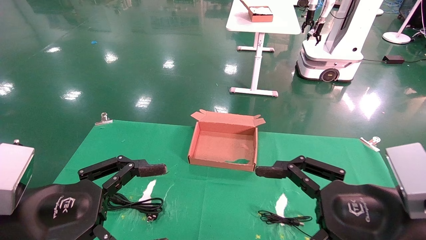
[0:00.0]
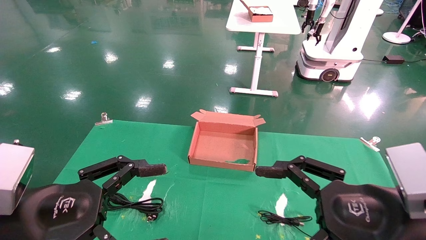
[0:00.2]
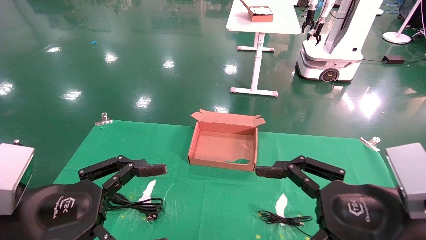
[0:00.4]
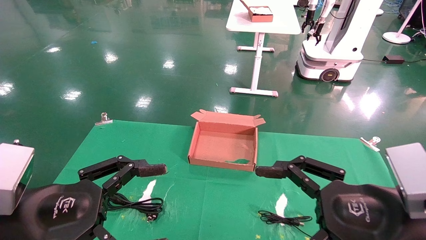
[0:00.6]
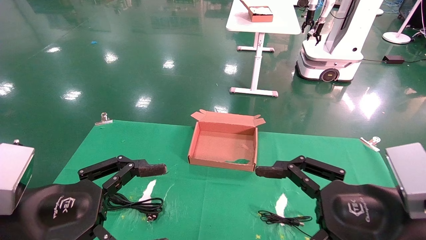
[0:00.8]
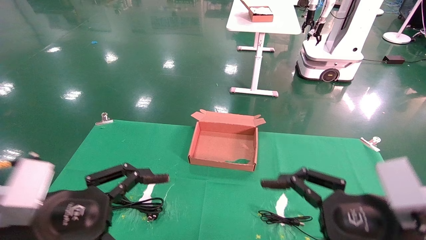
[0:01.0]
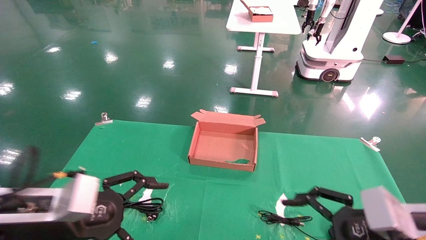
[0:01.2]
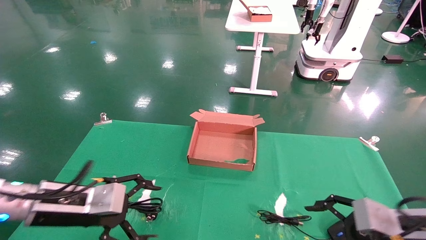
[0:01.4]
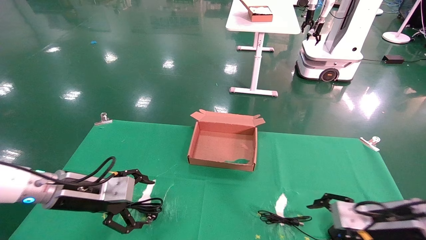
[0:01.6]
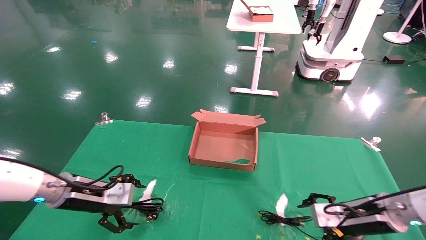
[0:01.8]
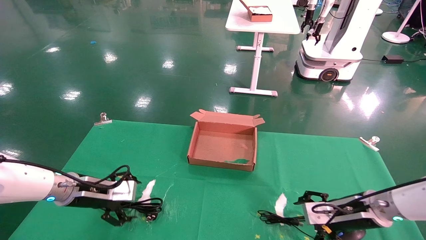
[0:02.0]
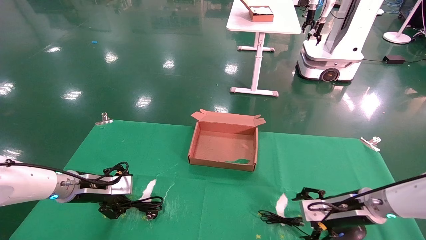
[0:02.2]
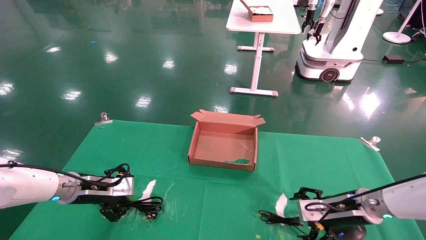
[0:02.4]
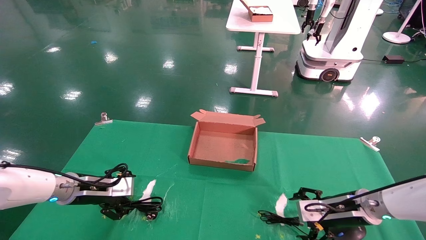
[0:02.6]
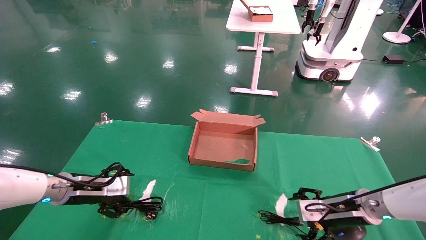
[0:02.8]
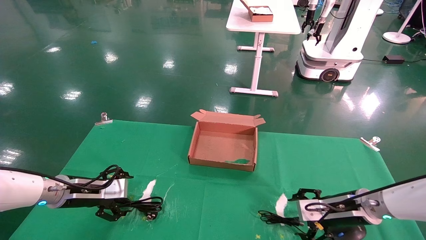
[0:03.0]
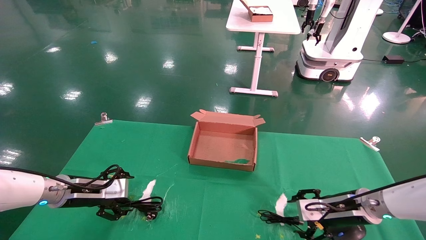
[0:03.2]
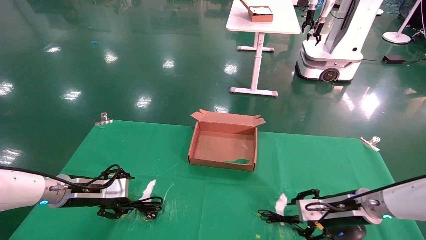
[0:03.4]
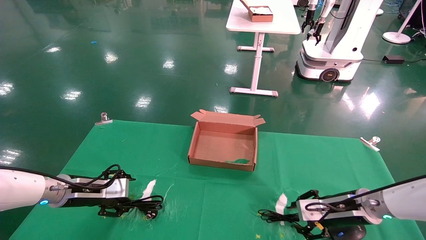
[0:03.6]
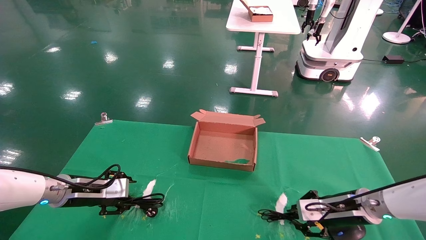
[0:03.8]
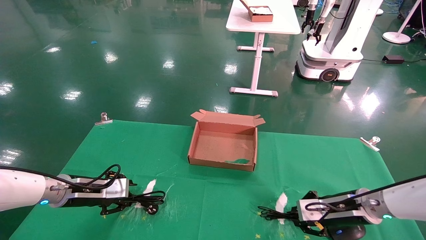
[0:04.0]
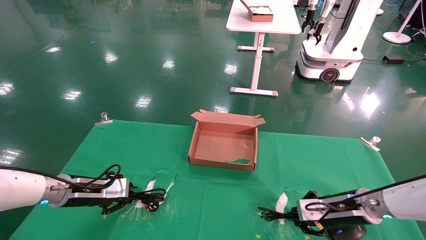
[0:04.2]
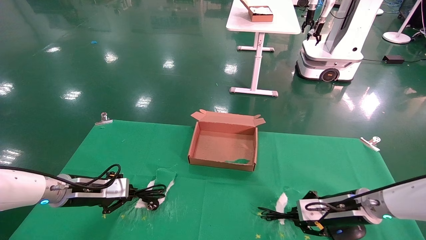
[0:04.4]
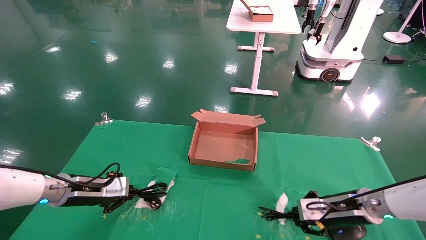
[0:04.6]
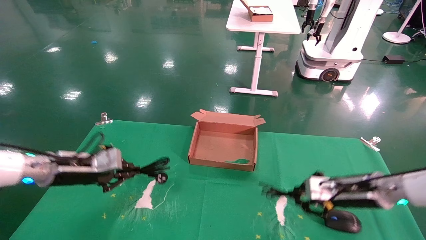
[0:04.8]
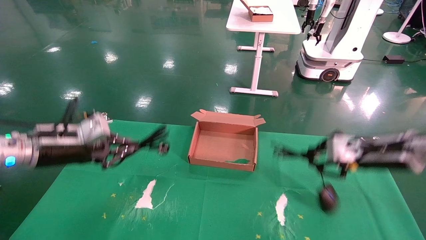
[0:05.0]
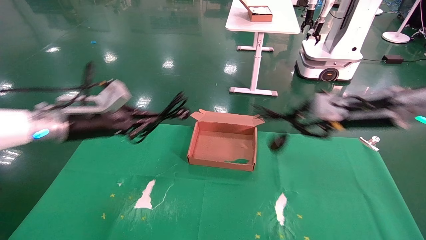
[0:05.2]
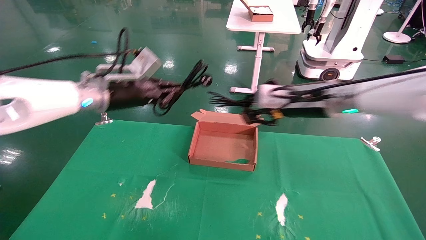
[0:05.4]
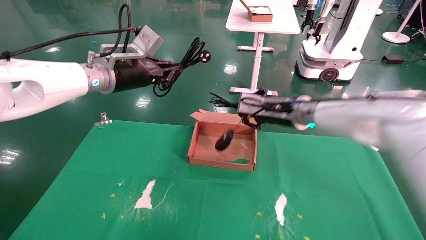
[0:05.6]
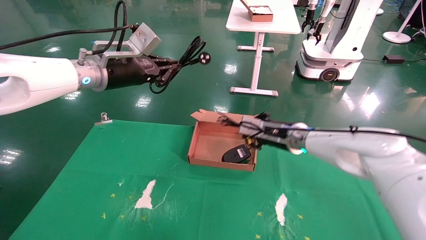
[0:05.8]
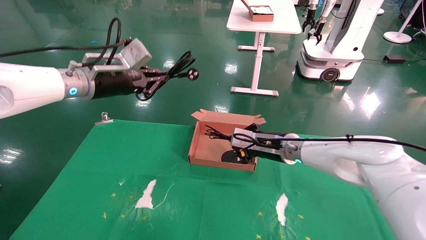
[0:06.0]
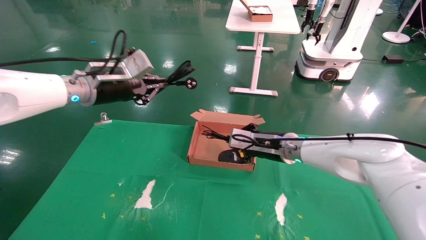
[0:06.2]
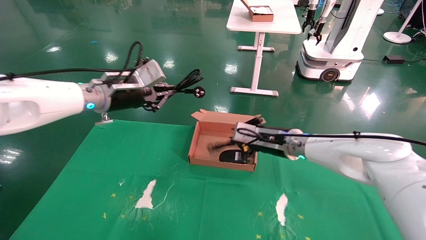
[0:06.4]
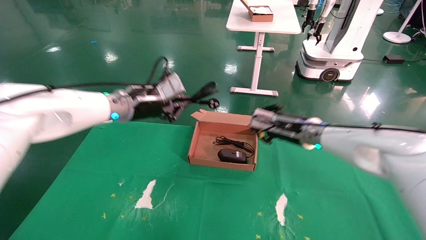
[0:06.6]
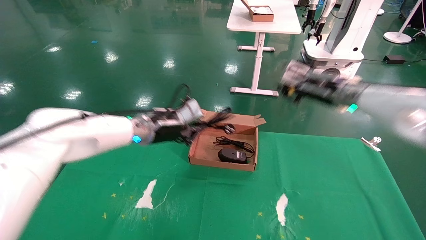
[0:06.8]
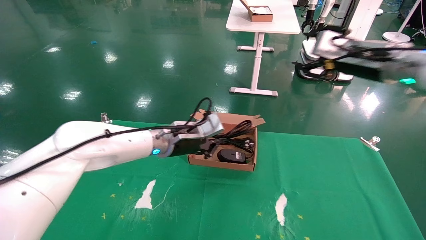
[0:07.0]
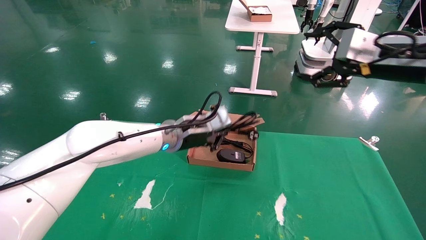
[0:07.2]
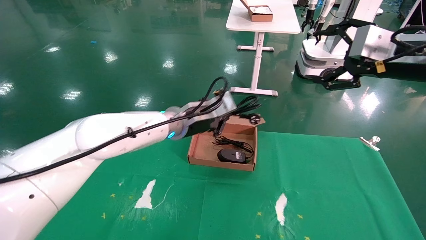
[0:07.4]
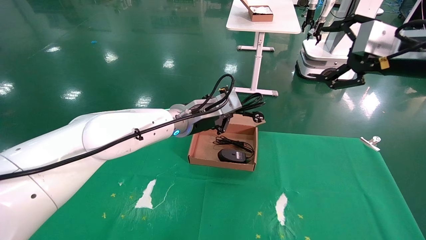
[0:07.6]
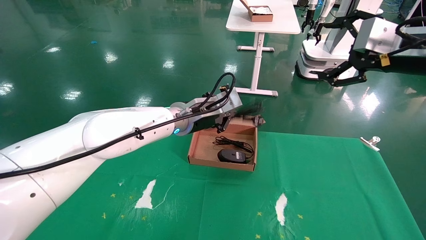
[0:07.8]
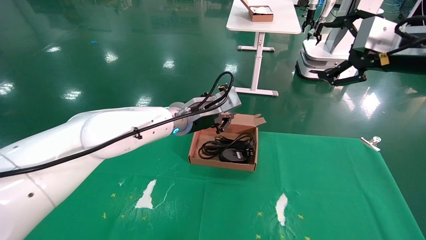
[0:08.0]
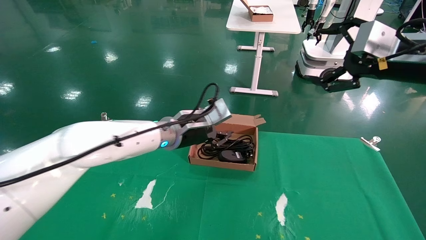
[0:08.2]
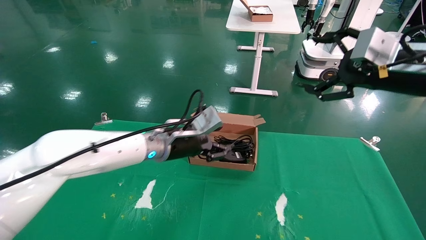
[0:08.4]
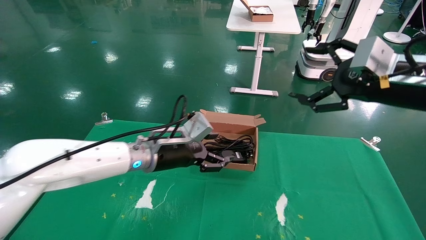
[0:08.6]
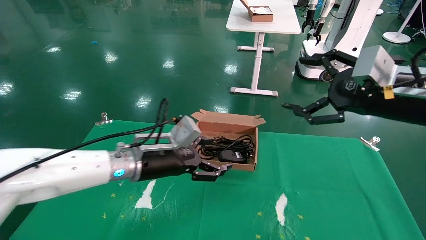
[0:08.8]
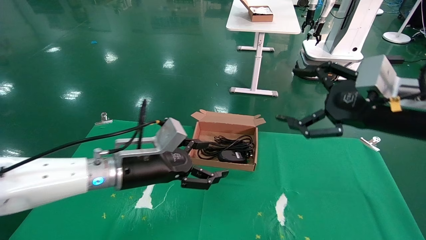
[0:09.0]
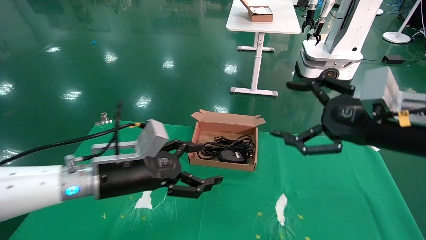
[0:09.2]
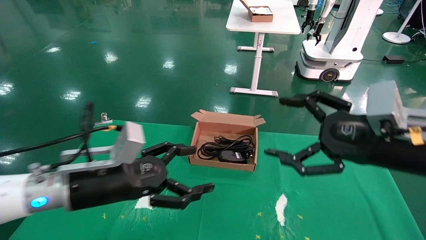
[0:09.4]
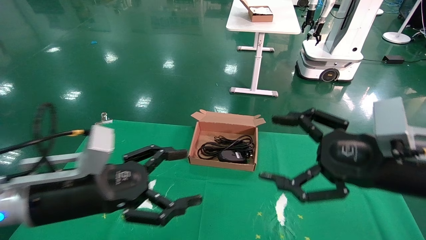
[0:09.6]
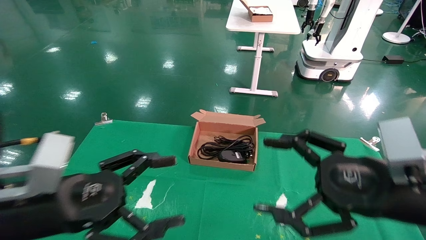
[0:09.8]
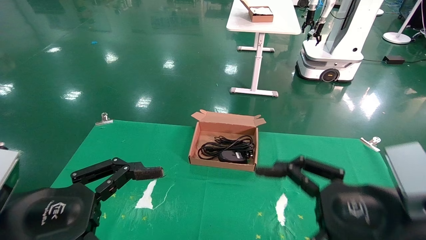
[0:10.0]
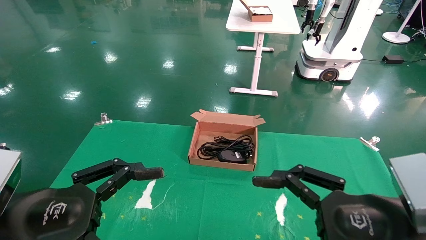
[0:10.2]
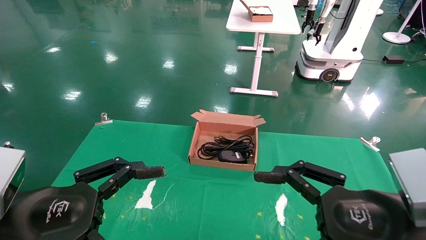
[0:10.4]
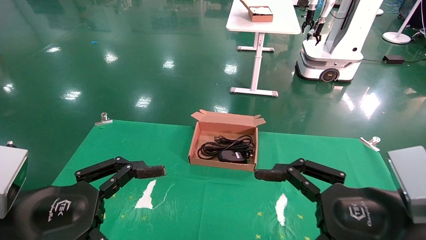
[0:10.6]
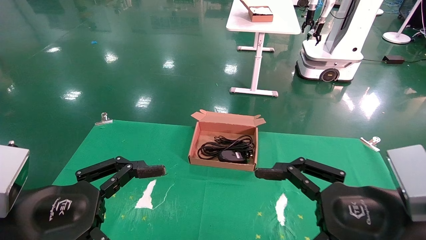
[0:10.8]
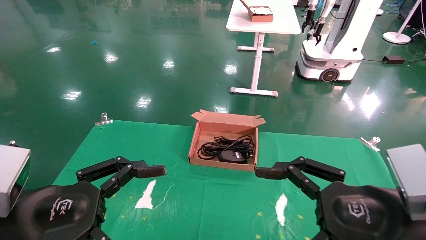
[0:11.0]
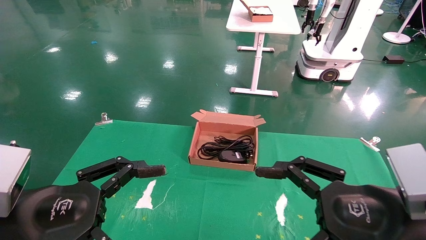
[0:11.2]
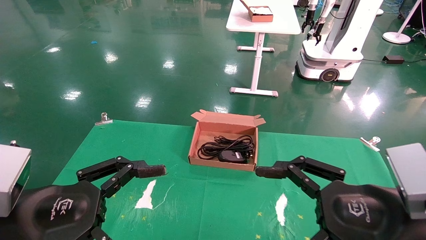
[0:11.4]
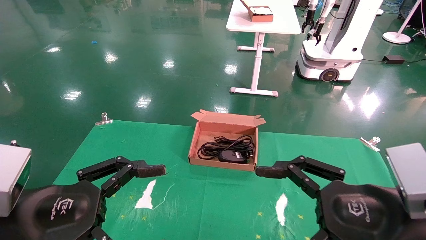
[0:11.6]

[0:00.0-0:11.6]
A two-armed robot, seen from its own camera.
Step, 0:01.2 to 0:04.4: Grab and lift both the mouse and power cord from the accessory packaging area at the same time.
Step, 0:04.6 to 0:08.2: Place the mouse and power cord into the box.
0:00.0 to 0:01.4: The right gripper travels forward, downward and to the right by about 15 cm, while the left gripper heads forward, covering about 15 cm.
0:01.4 to 0:02.8: The left gripper is displaced forward, to the left and downward by about 15 cm. Meanwhile the right gripper is displaced forward and downward by approximately 15 cm.
0:02.8 to 0:04.4: The right gripper closes up, while the left gripper closes up.
0:04.4 to 0:05.8: The right gripper travels to the left, upward and forward by approximately 20 cm. Meanwhile the left gripper shifts roughly 25 cm upward and to the right.
0:05.8 to 0:07.2: The left gripper moves to the right and downward, roughly 20 cm. The right gripper is displaced upward, to the right and backward by some 25 cm, and opens up.
0:07.2 to 0:08.8: The left gripper shifts about 10 cm backward, to the left and downward, and opens up. The right gripper shifts roughly 10 cm downward and backward.
0:08.8 to 0:10.2: The left gripper travels backward and to the left by approximately 25 cm. The right gripper heads backward, downward and to the left, covering roughly 20 cm.
0:10.2 to 0:11.6: Neither gripper changes place.
